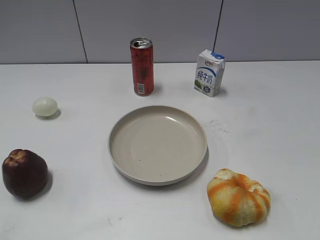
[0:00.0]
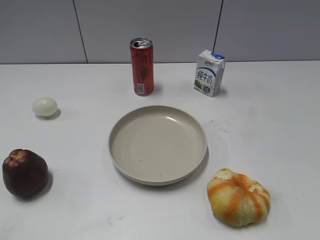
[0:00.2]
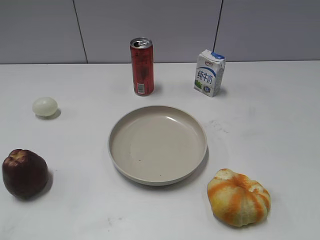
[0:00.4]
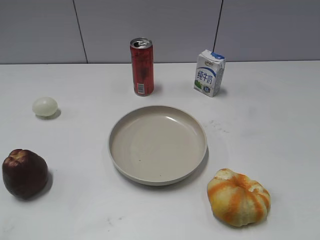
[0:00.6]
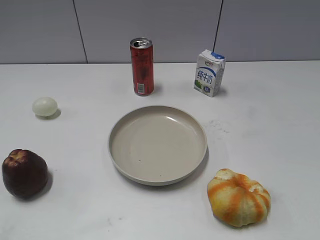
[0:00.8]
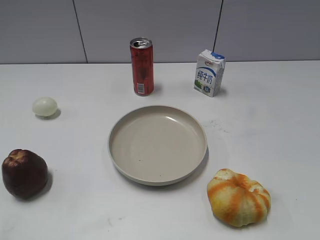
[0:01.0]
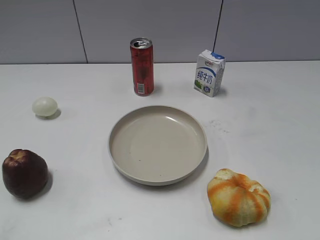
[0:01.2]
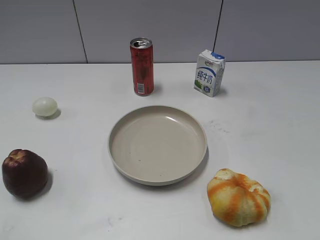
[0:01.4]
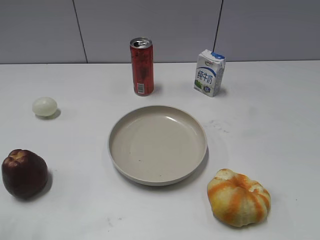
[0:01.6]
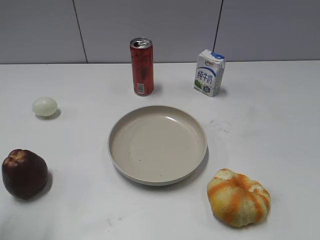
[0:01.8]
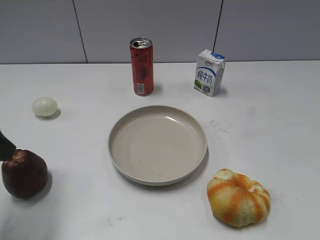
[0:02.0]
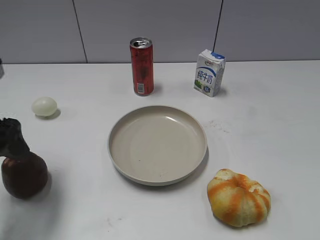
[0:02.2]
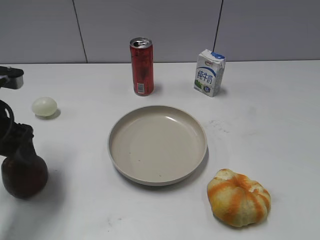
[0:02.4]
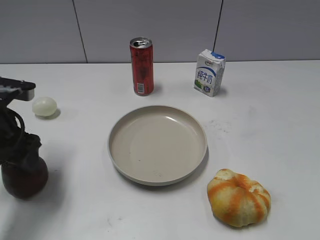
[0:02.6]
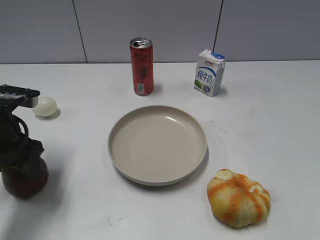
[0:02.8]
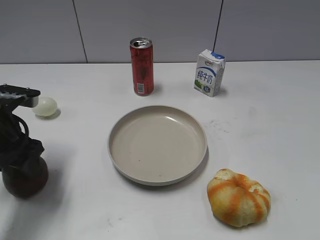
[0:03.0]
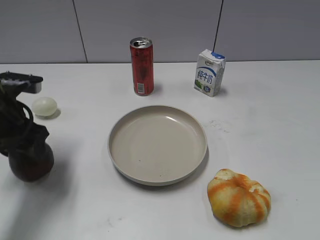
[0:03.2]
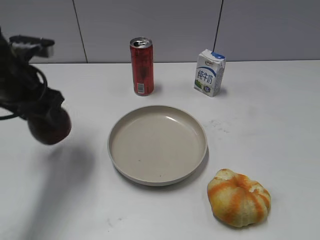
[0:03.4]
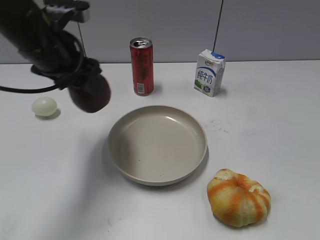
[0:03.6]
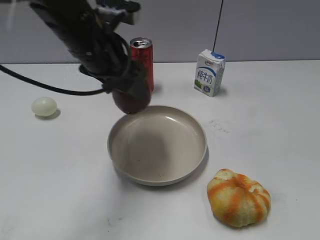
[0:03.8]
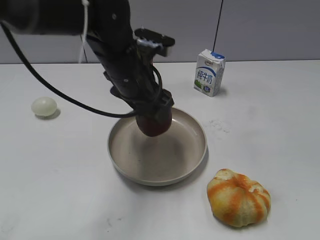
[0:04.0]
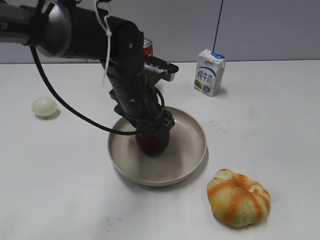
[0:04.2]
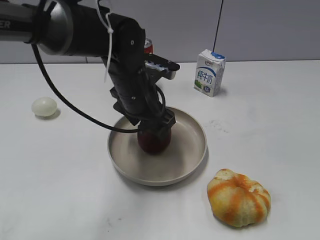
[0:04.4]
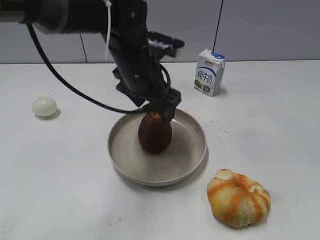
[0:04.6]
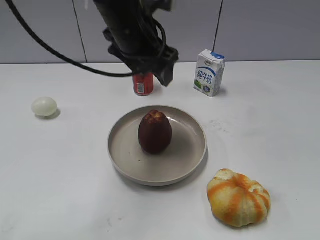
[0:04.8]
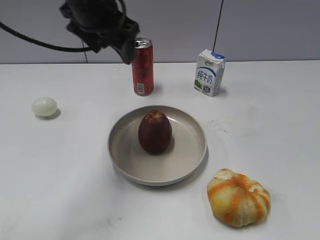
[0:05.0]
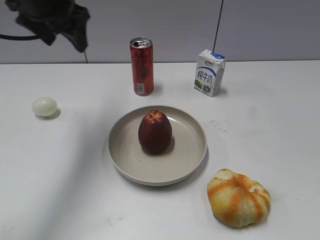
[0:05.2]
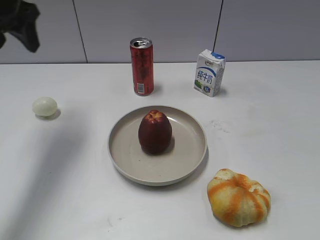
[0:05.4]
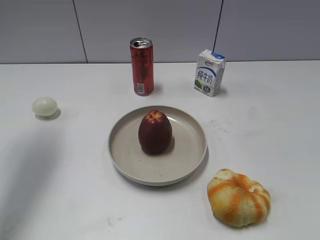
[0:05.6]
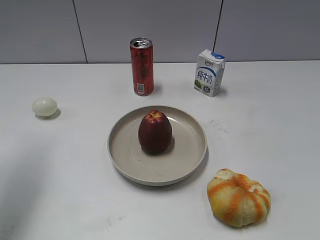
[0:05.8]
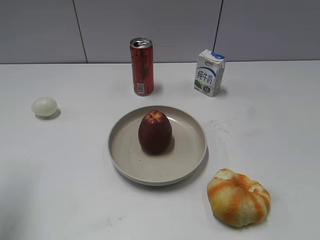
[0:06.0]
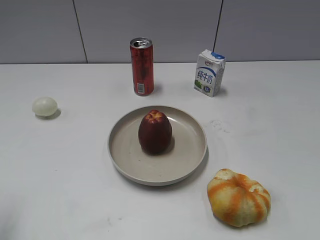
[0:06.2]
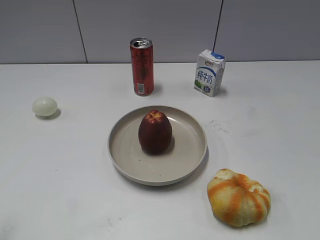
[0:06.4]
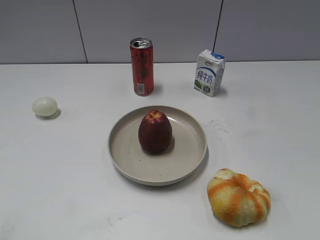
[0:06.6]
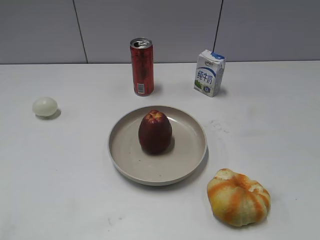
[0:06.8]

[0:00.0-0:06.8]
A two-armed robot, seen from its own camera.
Step, 0:02.0 to 0:02.8: Grasp the apple with left gripper.
Step, 0:03.2 to 0:04.6: Place the apple on the plate with left gripper.
0:01.4 to 0:02.8: The left gripper is displaced forward and downward by roughly 25 cm.
0:02.8 to 0:04.0: The left gripper is displaced to the right by roughly 20 cm.
0:04.0 to 0:05.4: The left gripper is displaced to the left and upward by about 25 cm, and opens, then closes once more.
0:05.4 to 0:06.8: The left gripper is displaced backward by some 35 cm.
